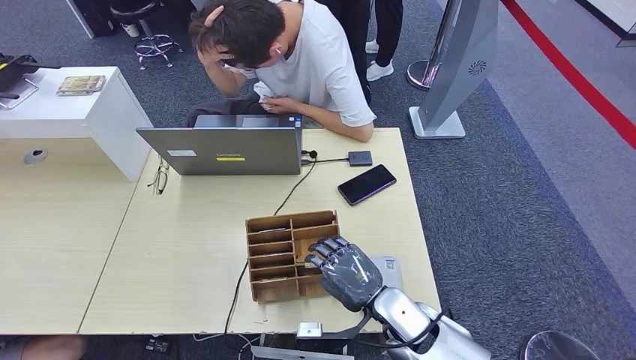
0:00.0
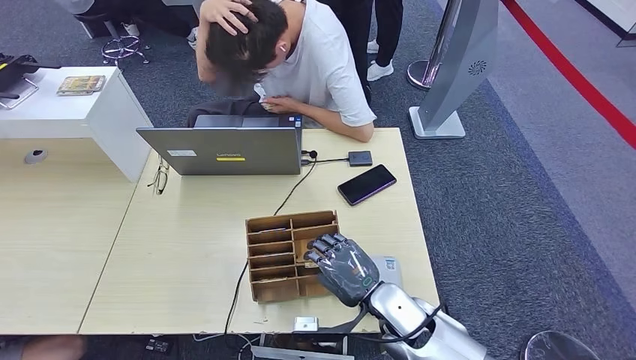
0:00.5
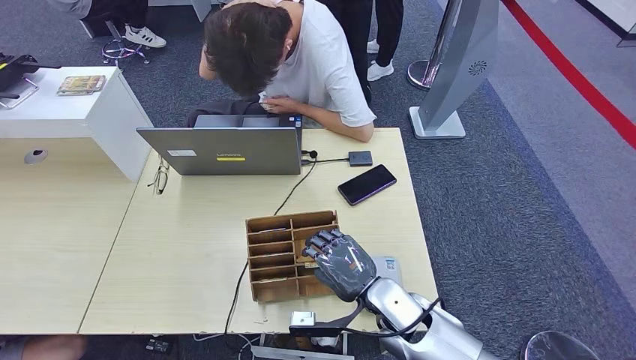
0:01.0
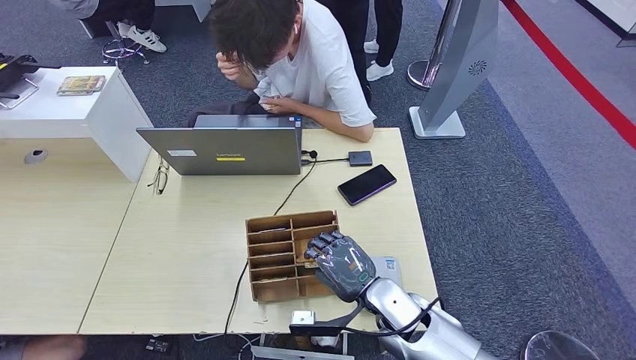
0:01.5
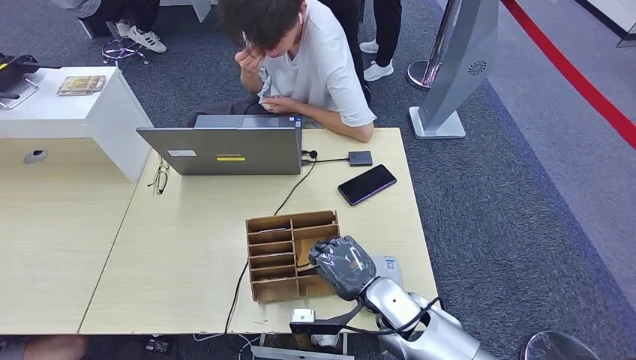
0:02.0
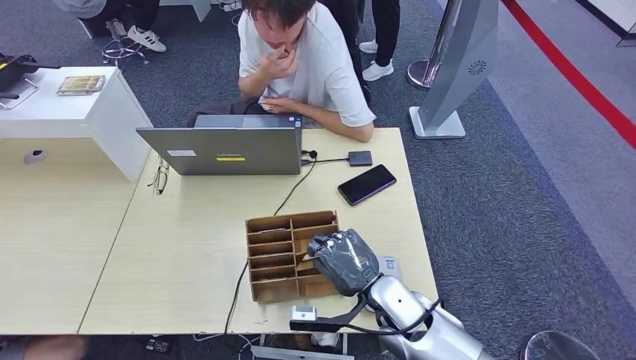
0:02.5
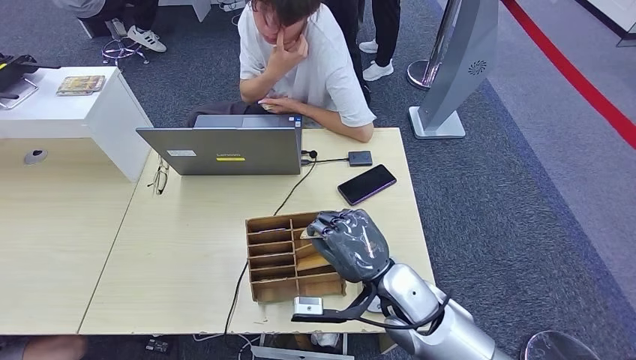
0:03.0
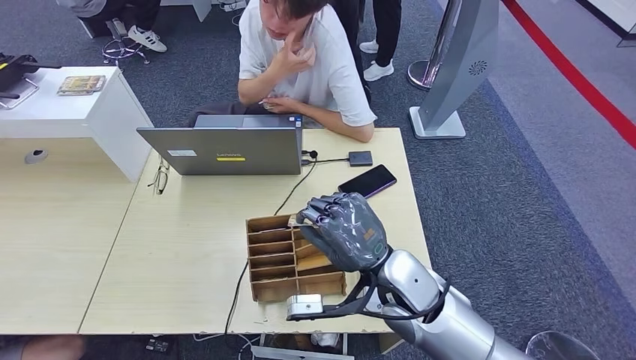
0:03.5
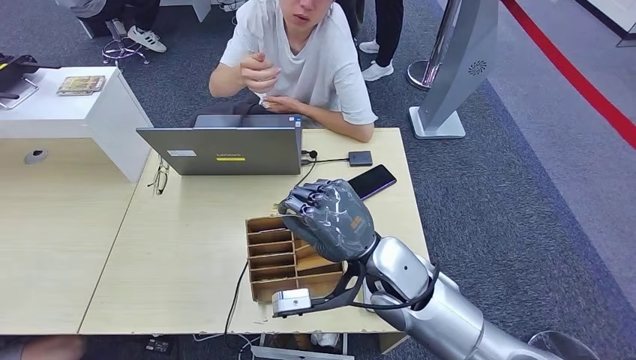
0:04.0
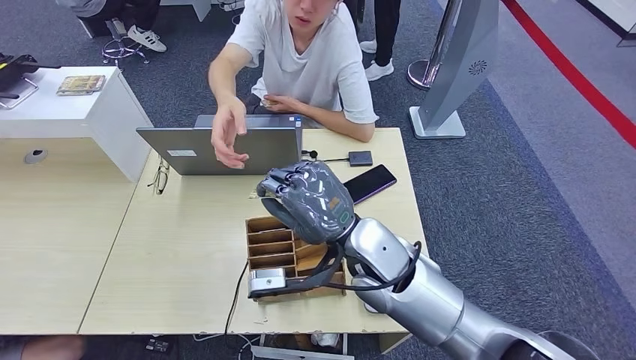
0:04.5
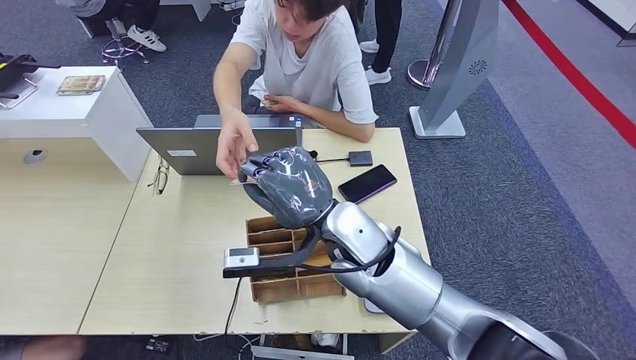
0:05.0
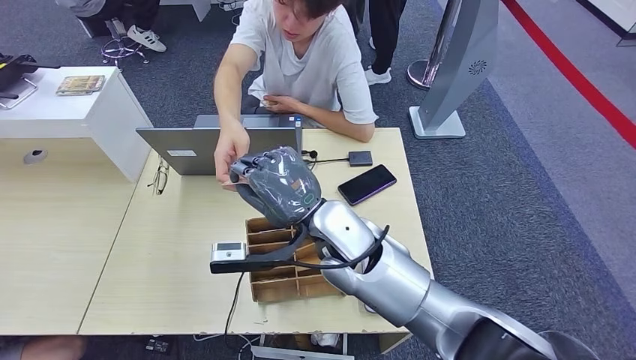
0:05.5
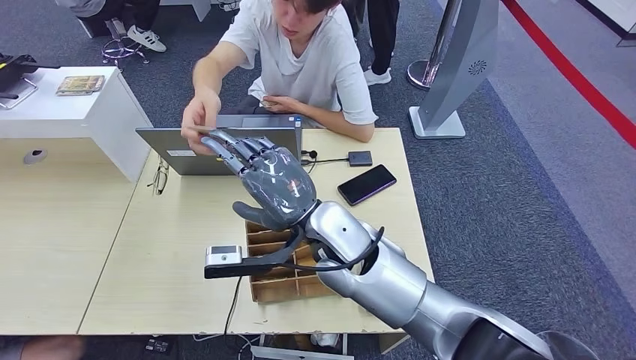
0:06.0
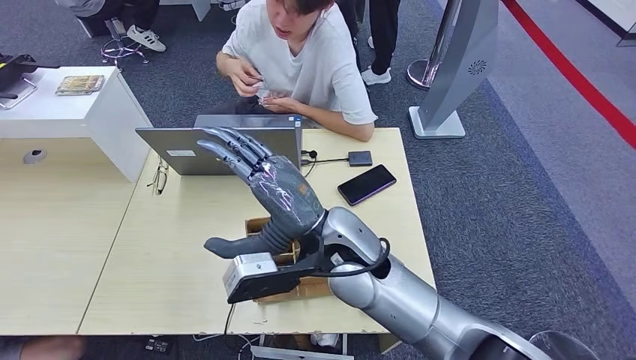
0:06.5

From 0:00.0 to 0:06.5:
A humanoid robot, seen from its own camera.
Step, from 0:00.5 to 0:03.5: Pick up the room key from the key card box.
Step, from 0:04.5 to 0:06.5: Hand the room key to the person.
From 0:00.0 to 0:02.0: There are only small adjustments of the hands.
From 0:02.0 to 0:04.5: The right hand heads upward, covering about 15 cm.
From 0:04.5 to 0:06.5: The right hand ends up roughly 5 cm from where it was.
